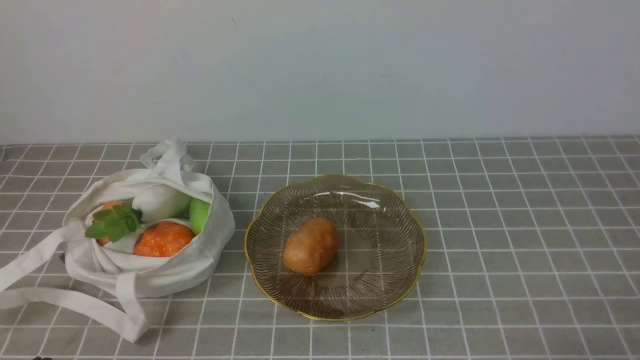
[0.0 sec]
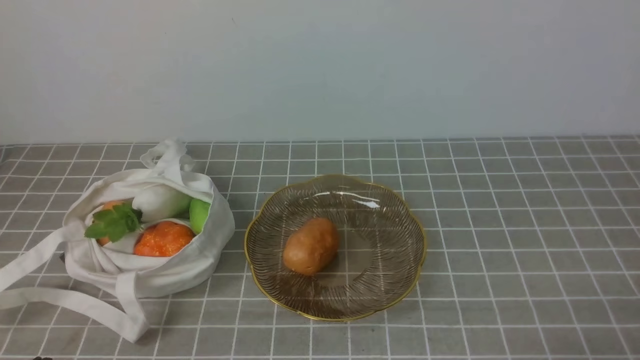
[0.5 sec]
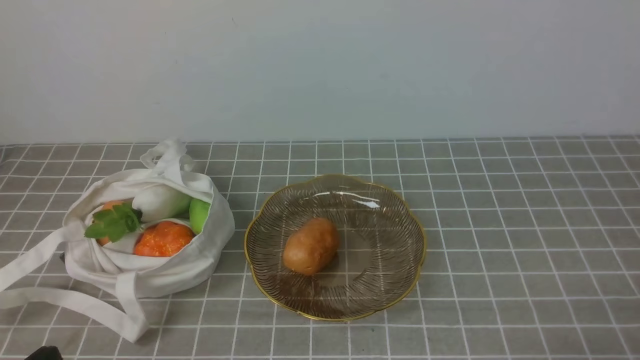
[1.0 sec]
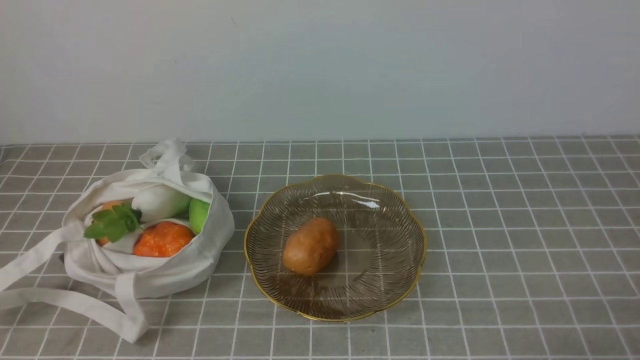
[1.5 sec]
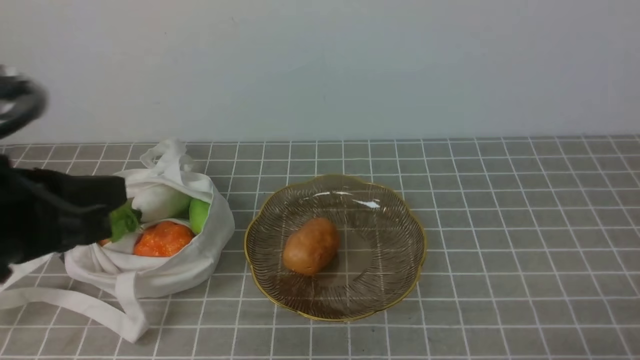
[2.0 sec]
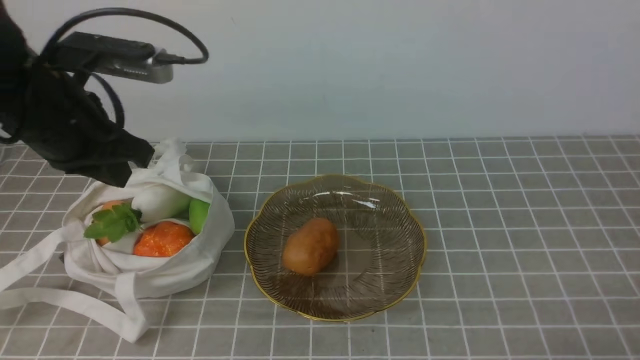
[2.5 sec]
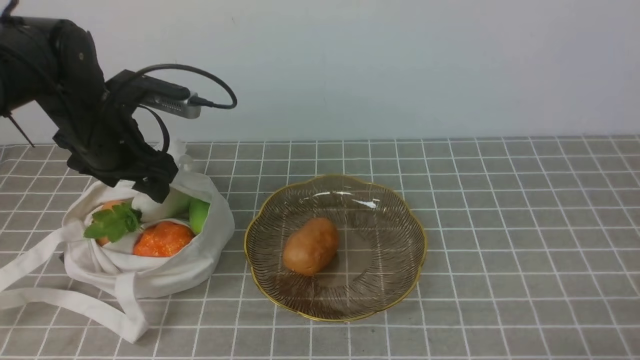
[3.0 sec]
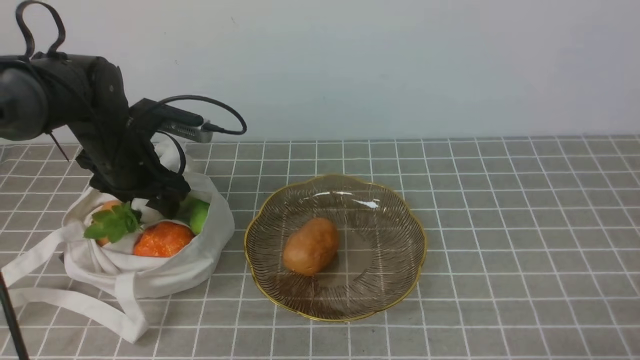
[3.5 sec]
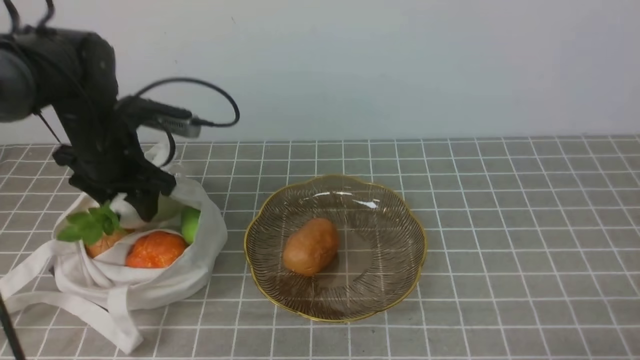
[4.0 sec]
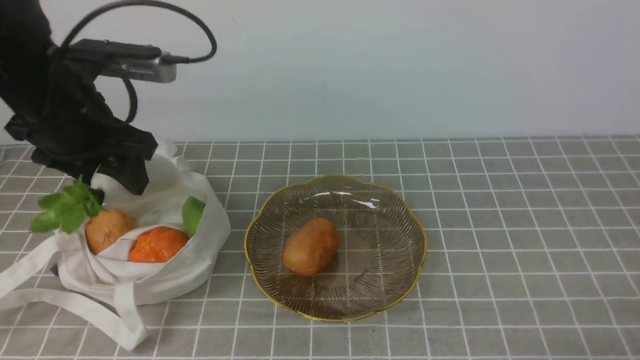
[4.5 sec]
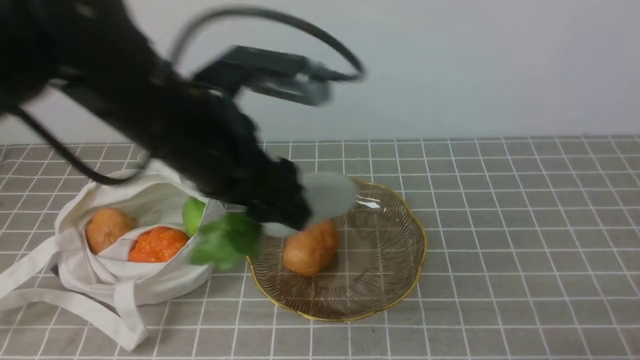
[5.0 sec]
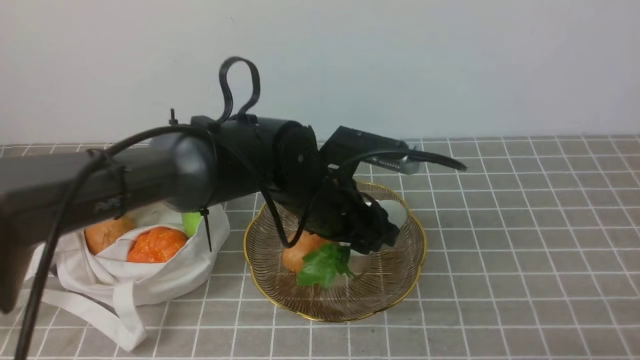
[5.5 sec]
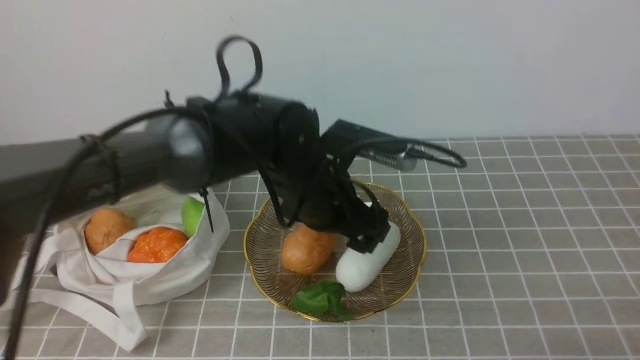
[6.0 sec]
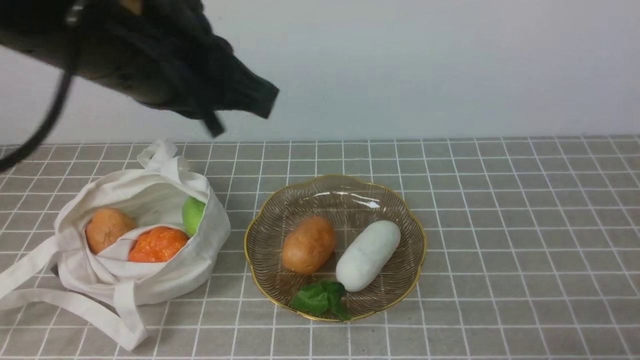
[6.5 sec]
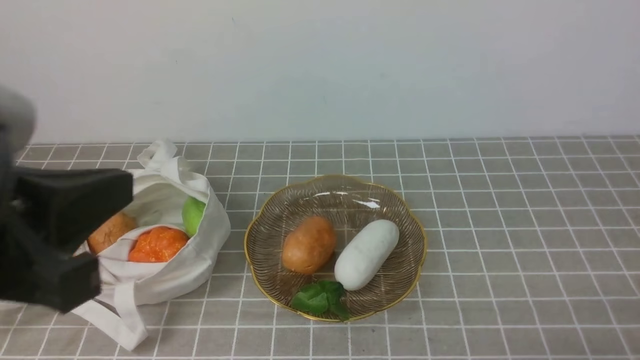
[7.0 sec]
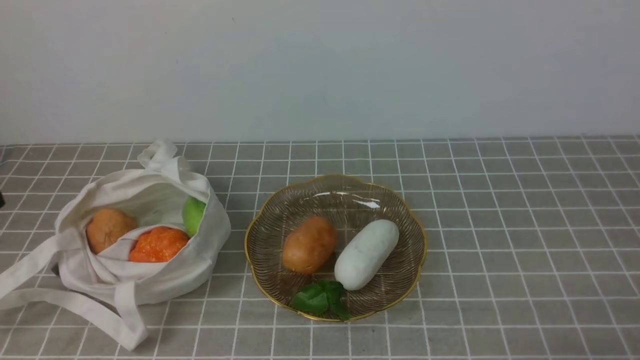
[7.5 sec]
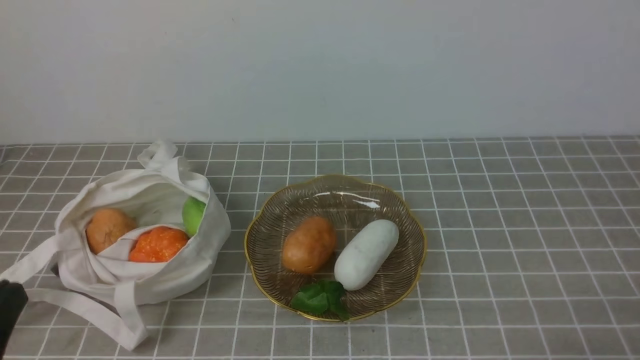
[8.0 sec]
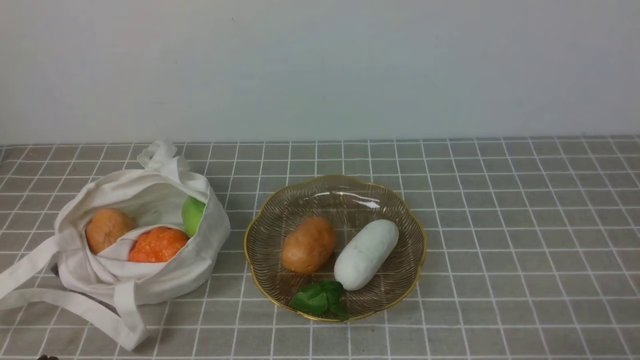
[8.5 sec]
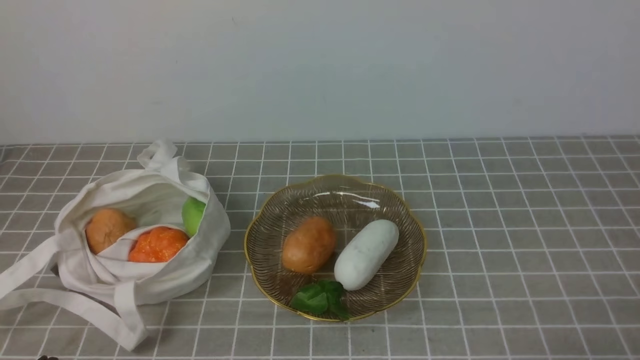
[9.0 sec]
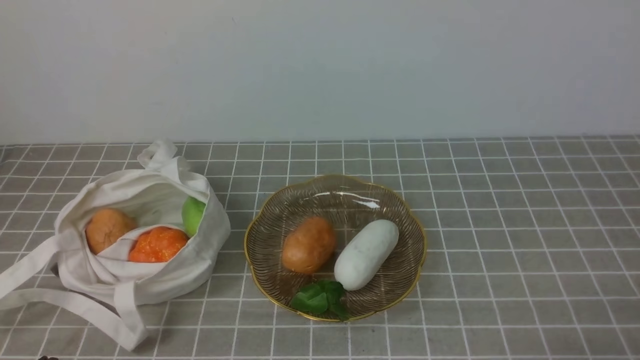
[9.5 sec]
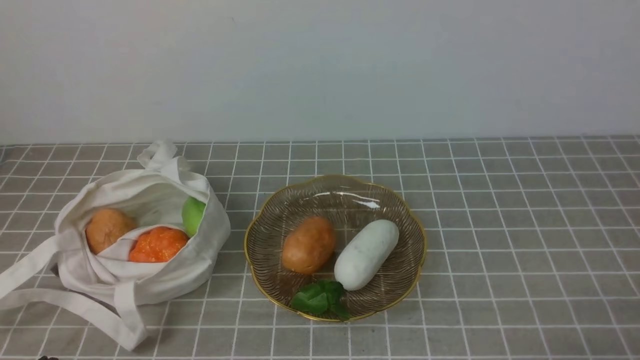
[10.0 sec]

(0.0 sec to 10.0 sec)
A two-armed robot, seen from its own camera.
Task of the whole recording: take vegetables from bag on grey coffee tablecloth place on plate.
Step, 0.0 sec - 3.5 sec: Grasp the radish with left gripper.
Step, 4.0 sec - 6.0 sec: Place the radish on the plate with left gripper.
2.0 sec - 4.0 sec: The left gripper moves forward and downward, some 30 cm, and opens up.
4.0 sec - 6.0 sec: The left gripper shifts roughly 20 cm to the right.
6.0 sec - 8.0 sec: The left gripper heads backward and to the left, covering roughly 35 cm, and closes.
8.0 sec - 10.0 sec: The left gripper travels downward by about 15 cm.

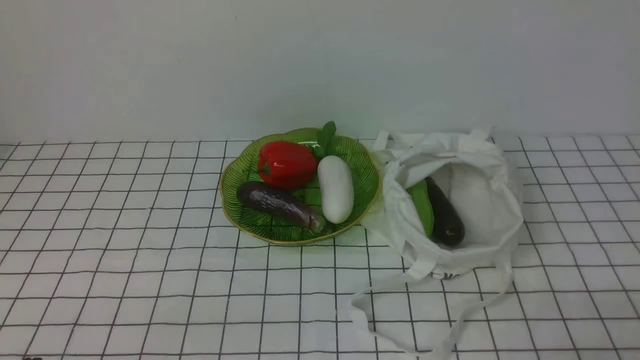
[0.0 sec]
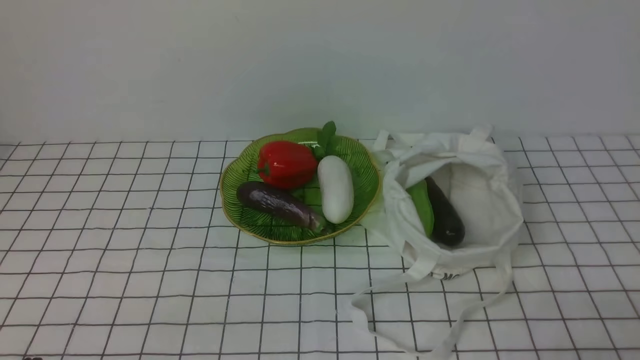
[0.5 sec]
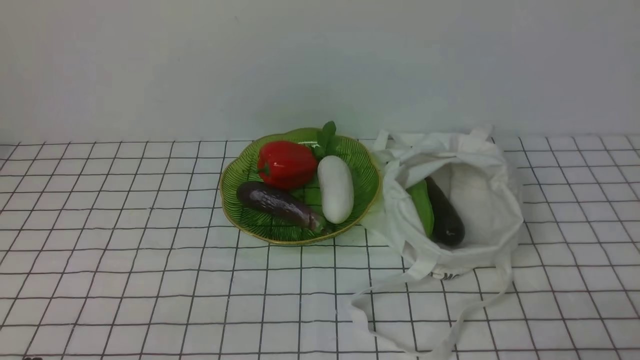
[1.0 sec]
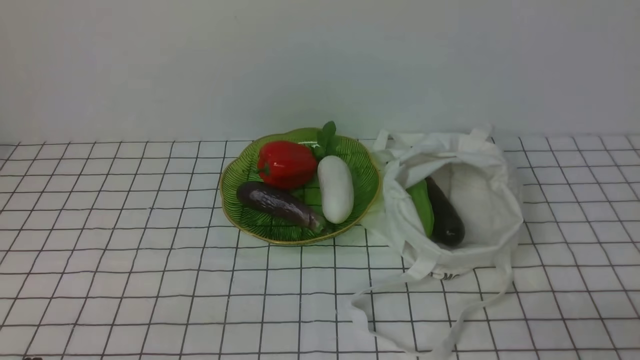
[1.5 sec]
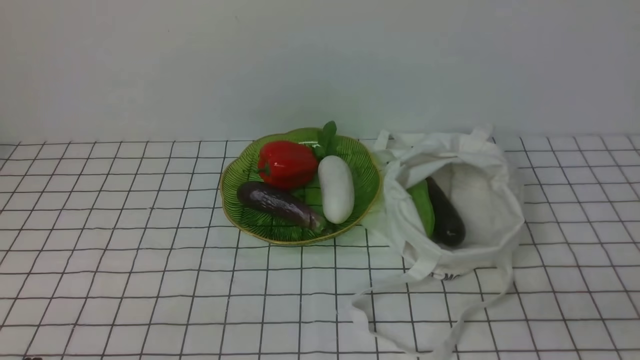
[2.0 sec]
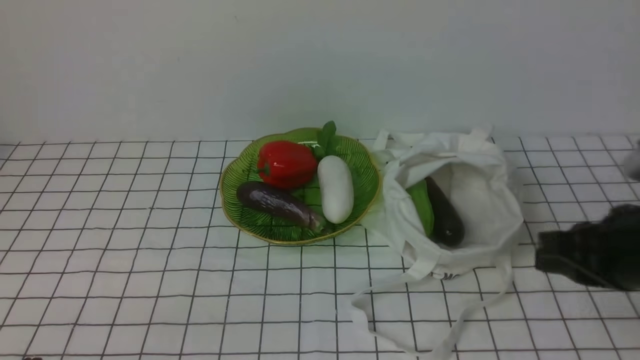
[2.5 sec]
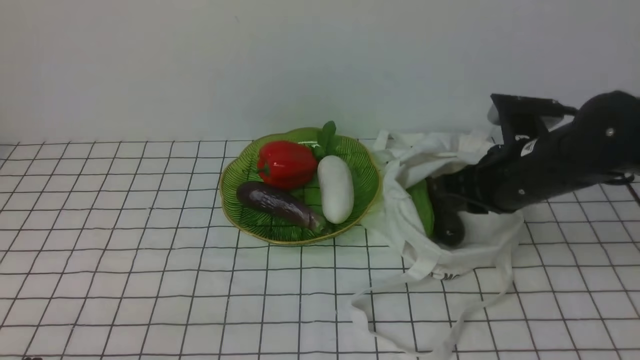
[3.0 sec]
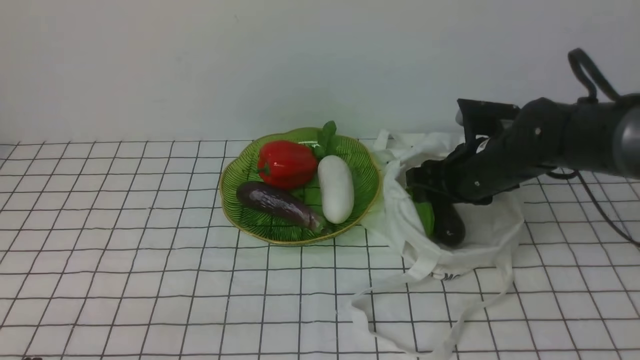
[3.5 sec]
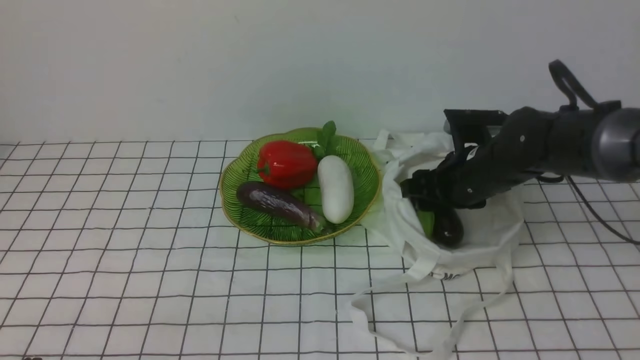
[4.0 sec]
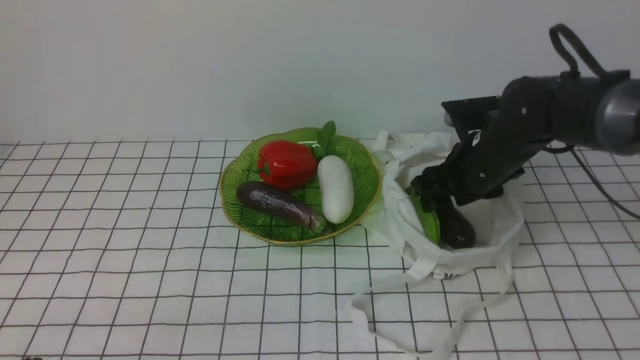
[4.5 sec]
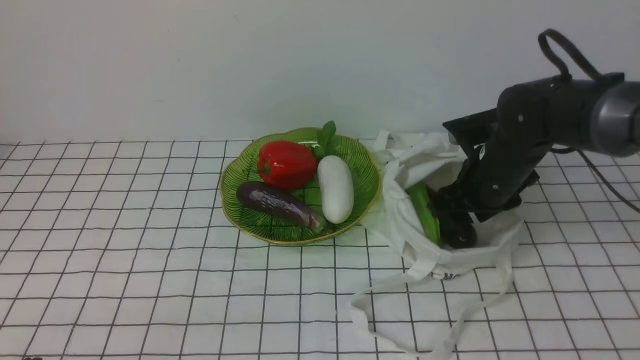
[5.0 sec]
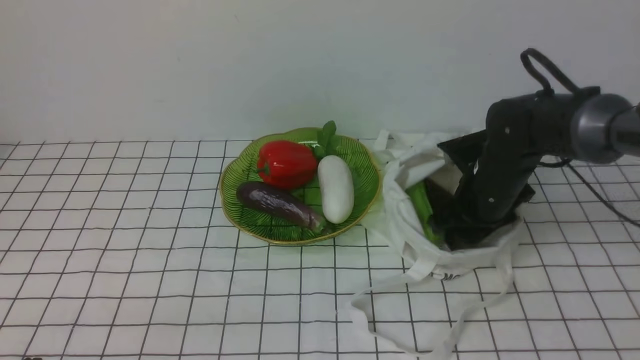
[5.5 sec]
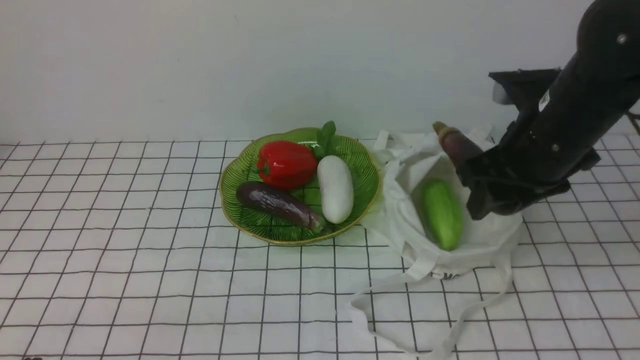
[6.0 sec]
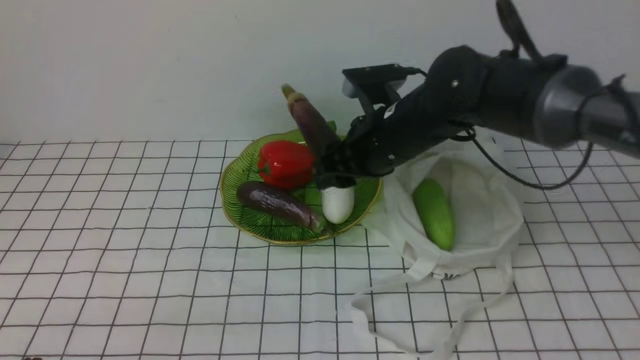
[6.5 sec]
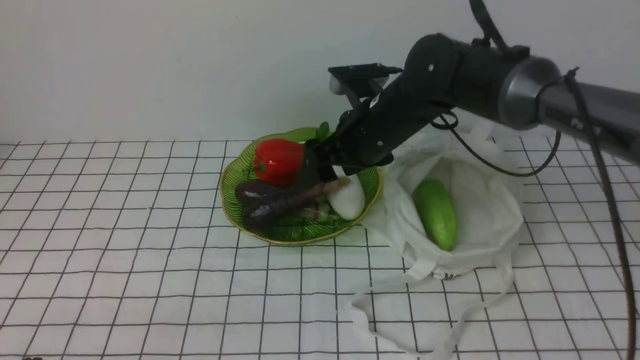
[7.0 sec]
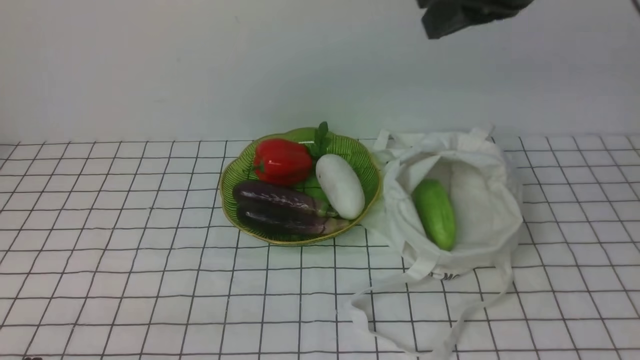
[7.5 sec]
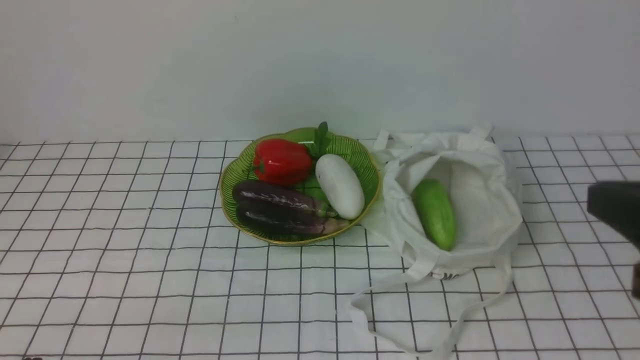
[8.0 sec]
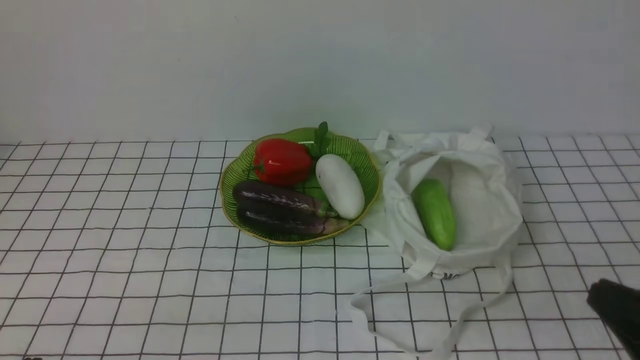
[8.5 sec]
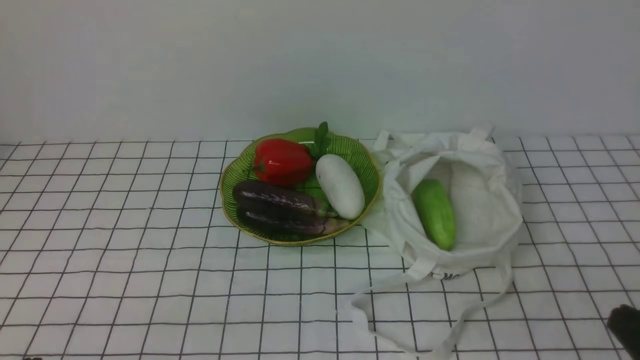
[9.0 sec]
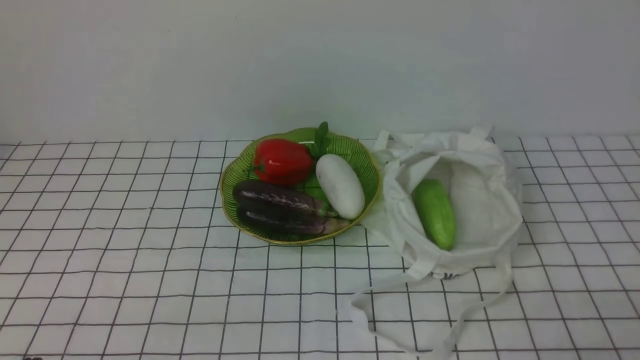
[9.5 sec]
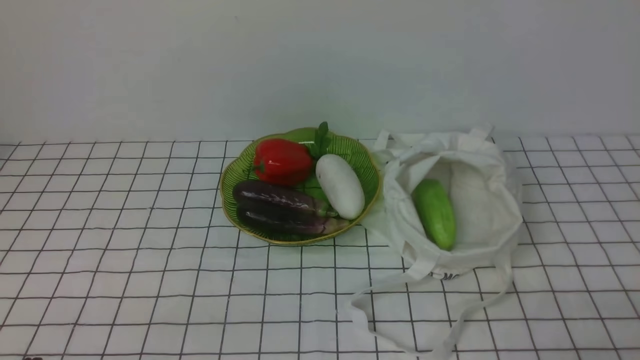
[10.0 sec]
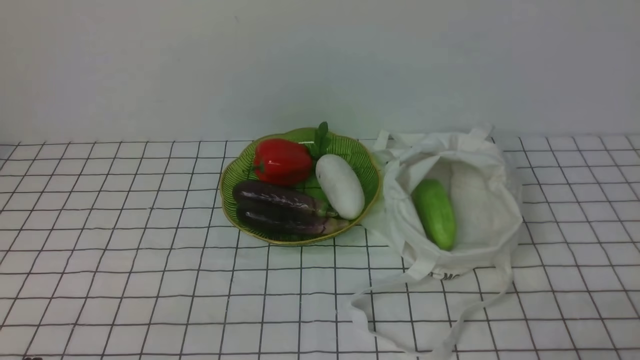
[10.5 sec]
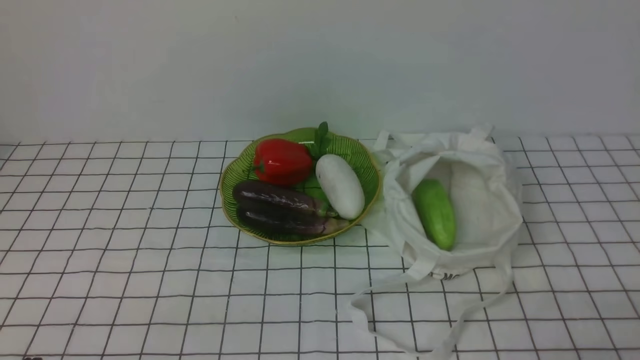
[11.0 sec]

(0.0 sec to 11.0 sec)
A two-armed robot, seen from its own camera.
Task of the whole recording: take vegetables from bag on white checkered tablecloth place on plate.
Step, 0.0 sec - 5.0 sec: Grasp the eggplant with right gripper.
Step, 5.5 sec - 7.0 sec: Place the eggplant on the plate with right gripper.
2.0 sec - 3.5 sec: The right gripper goes about 30 cm forward, and opens up.
5.5 sec - 7.5 sec: The right gripper is displaced upward by approximately 25 cm.
7.5 sec - 9.0 sec: The right gripper heads backward, downward and to the right, covering some 35 cm, and closes.
